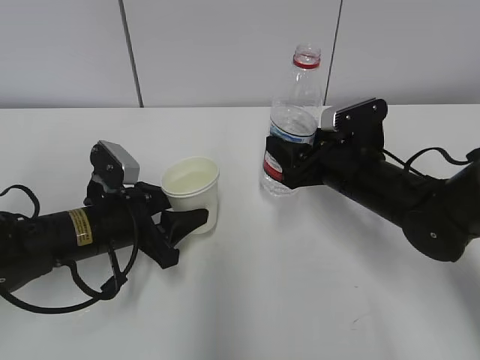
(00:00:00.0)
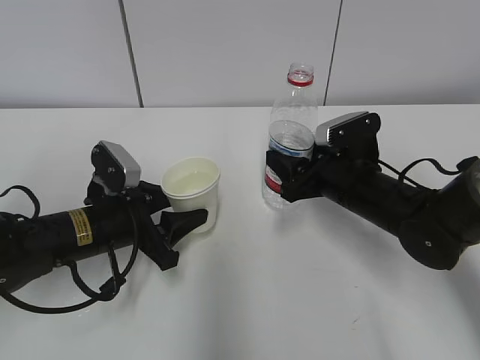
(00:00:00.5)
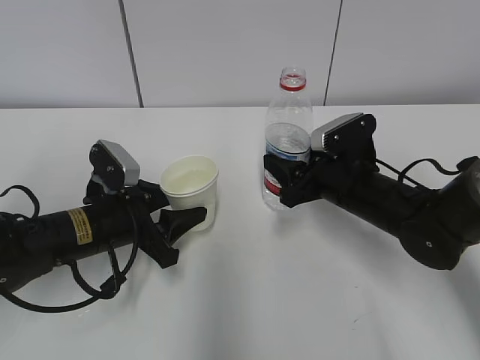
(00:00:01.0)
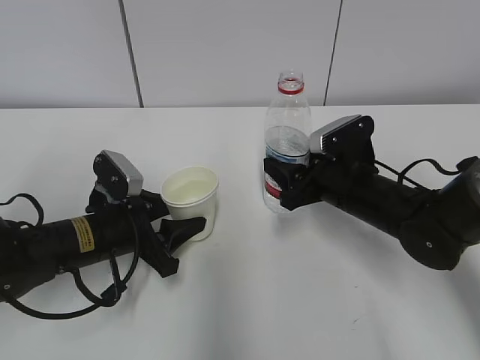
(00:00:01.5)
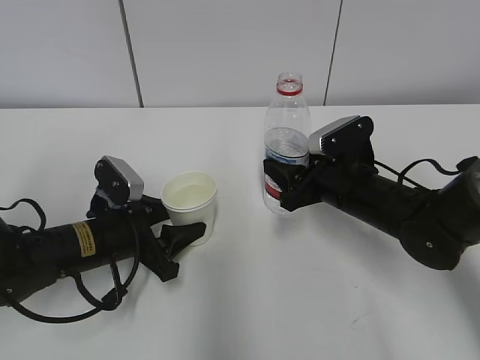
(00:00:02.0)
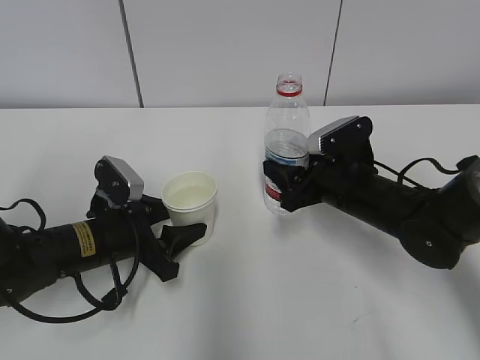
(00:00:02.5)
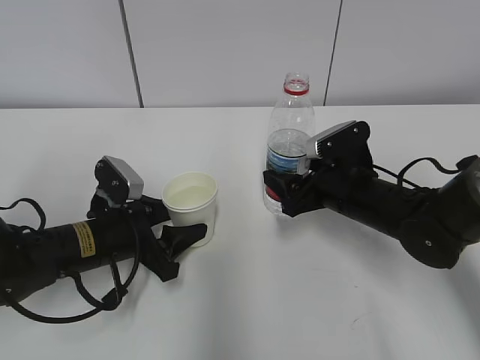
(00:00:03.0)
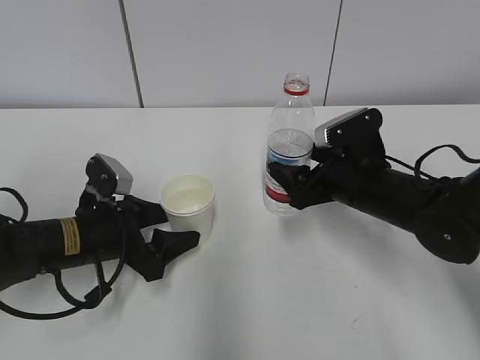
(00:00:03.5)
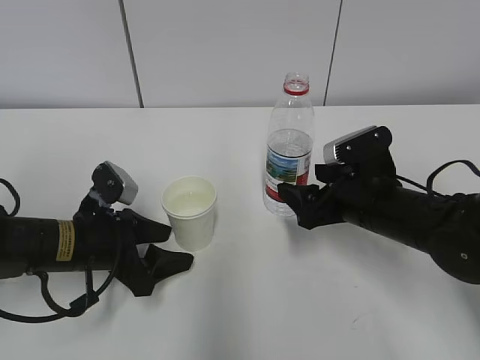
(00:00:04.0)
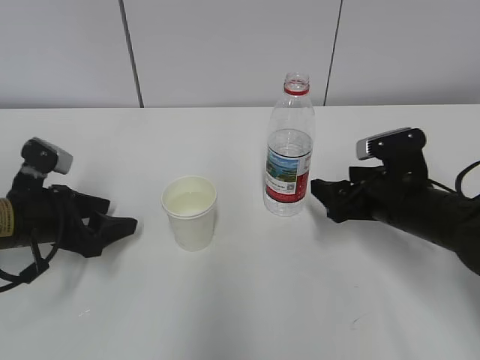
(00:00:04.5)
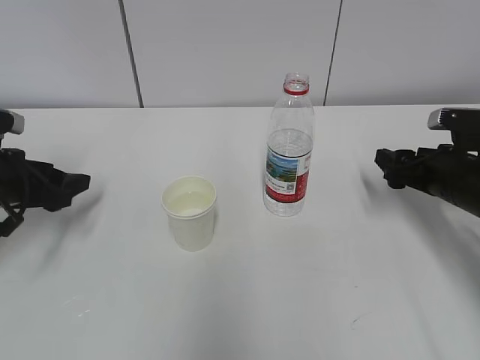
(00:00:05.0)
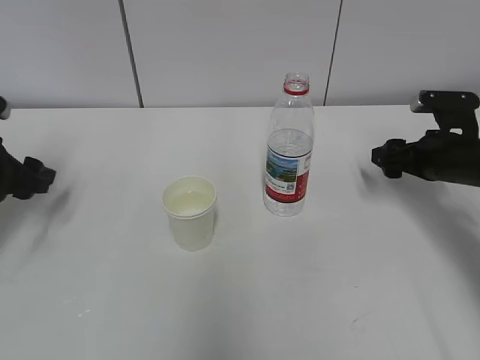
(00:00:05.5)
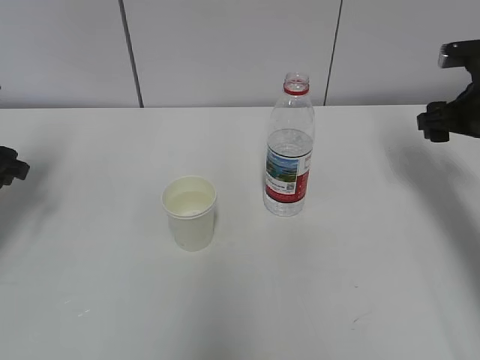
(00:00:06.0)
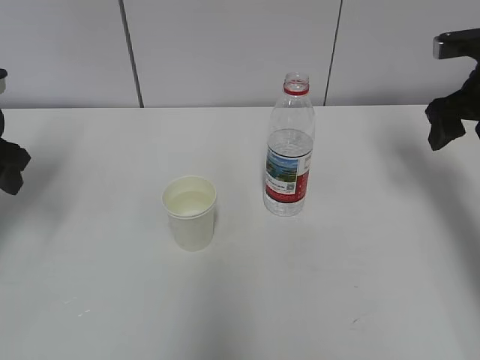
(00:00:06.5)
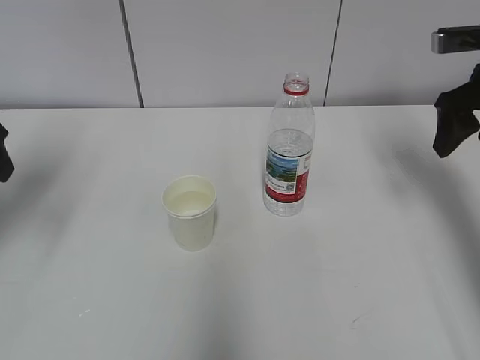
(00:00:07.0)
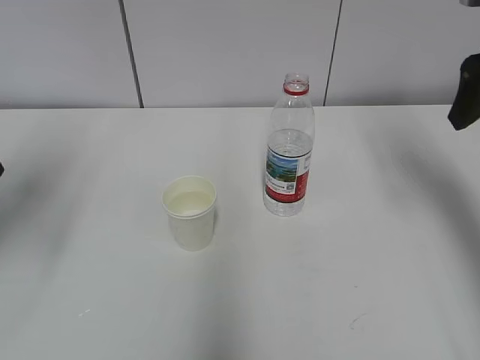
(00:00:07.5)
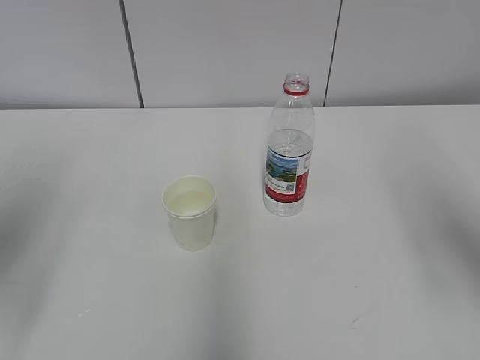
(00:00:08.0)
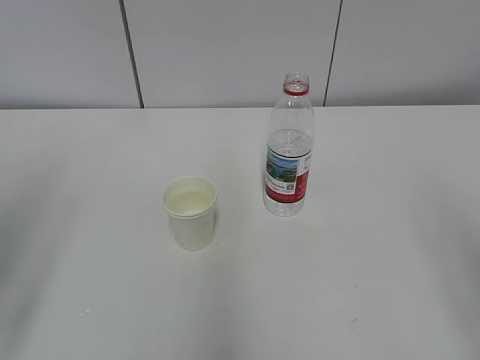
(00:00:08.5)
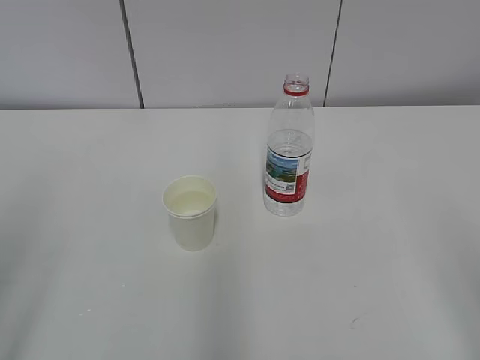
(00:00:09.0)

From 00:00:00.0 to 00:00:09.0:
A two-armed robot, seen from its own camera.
From 00:00:00.0 to 00:00:02.0: There are only small adjustments of the grippers.
From 00:00:02.0 to 00:00:04.5: The right gripper travels to the right by approximately 5 cm, and opens. Meanwhile the left gripper travels to the left by approximately 10 cm, and opens its fingers.
From 00:00:04.5 to 00:00:07.0: The right gripper moves upward and to the right, approximately 20 cm; the left gripper shifts roughly 20 cm upward.
From 00:00:07.0 to 00:00:09.0: Both grippers move backward, some 30 cm.

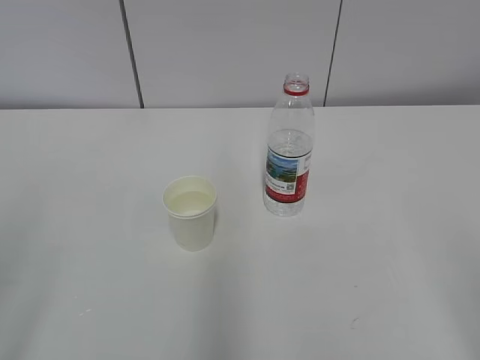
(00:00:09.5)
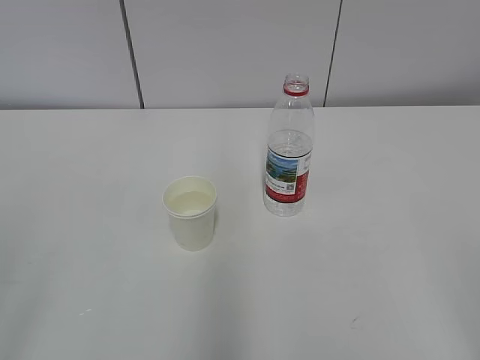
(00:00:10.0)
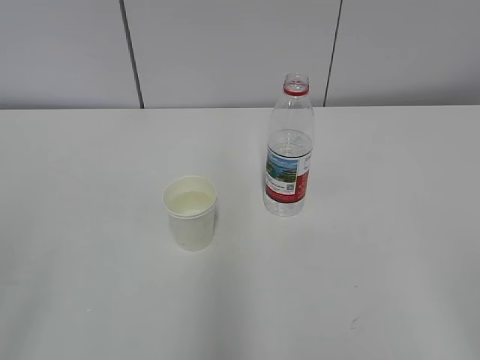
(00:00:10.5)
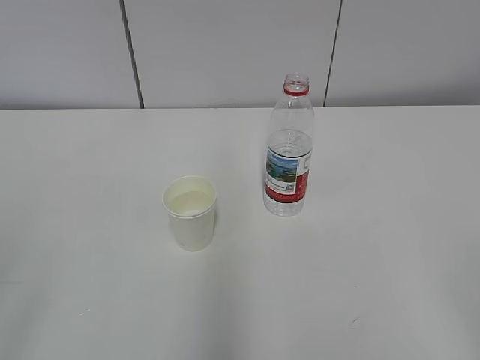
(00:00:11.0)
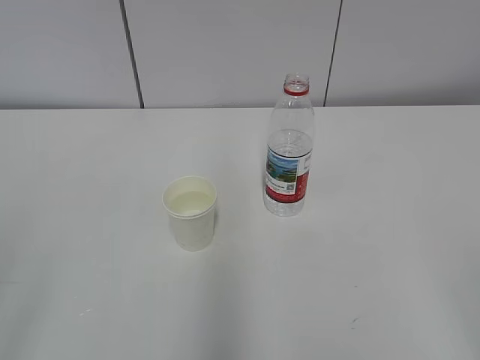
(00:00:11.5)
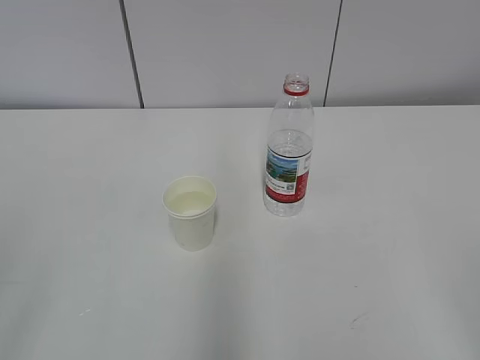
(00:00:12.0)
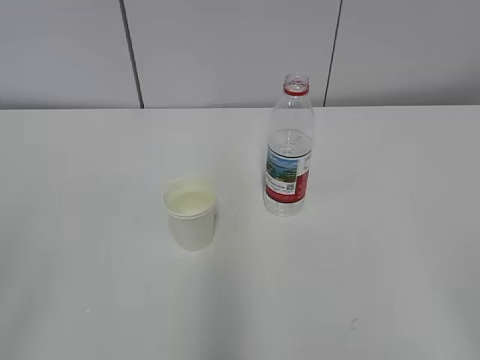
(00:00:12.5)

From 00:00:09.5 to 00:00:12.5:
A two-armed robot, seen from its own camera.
From 00:00:11.0 to 00:00:12.5: Both grippers stay put.
